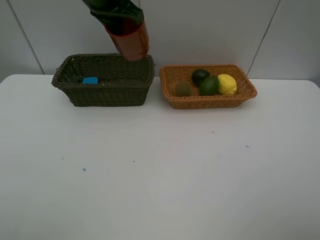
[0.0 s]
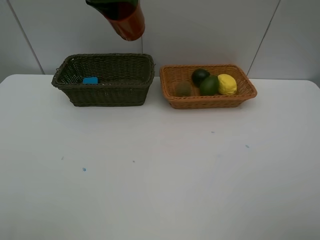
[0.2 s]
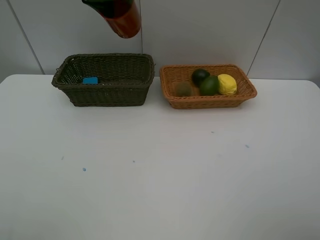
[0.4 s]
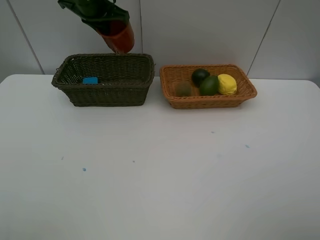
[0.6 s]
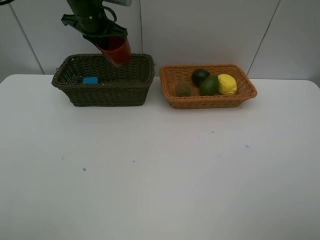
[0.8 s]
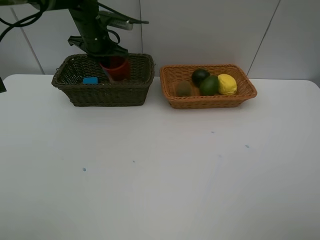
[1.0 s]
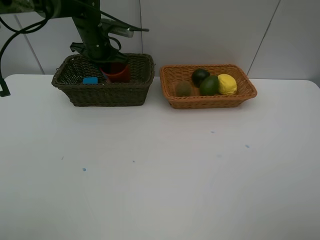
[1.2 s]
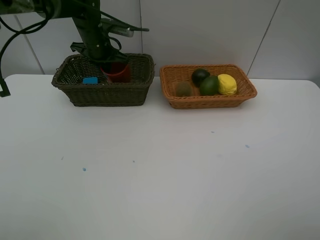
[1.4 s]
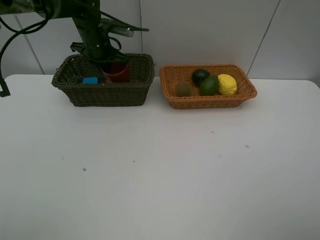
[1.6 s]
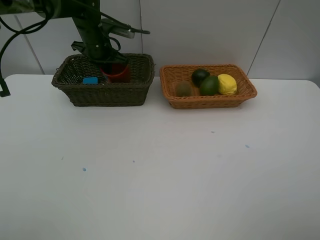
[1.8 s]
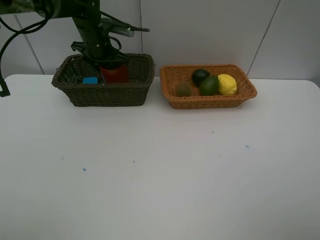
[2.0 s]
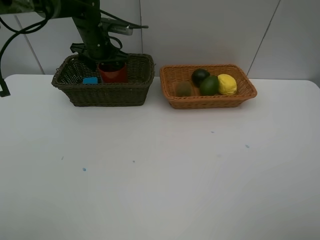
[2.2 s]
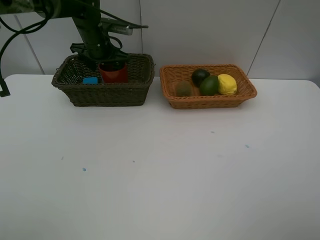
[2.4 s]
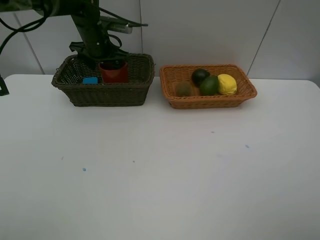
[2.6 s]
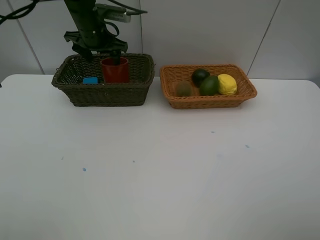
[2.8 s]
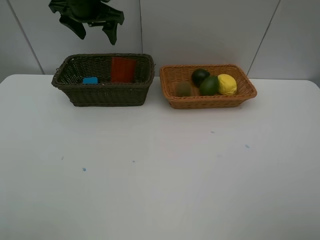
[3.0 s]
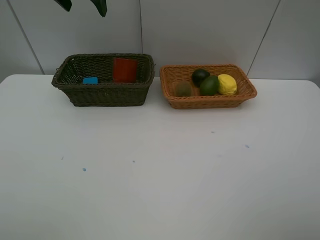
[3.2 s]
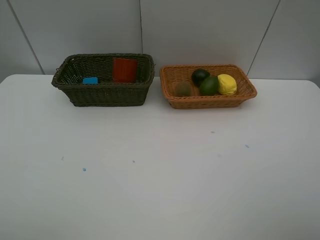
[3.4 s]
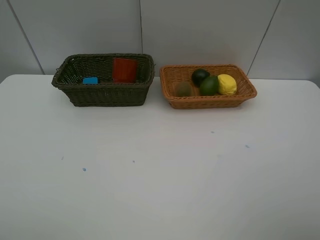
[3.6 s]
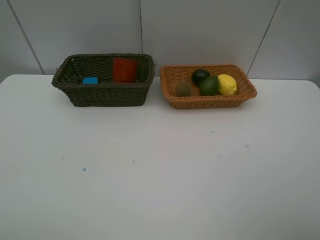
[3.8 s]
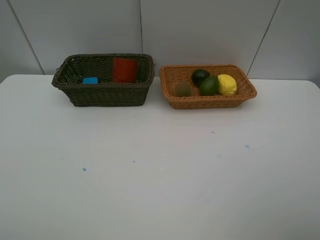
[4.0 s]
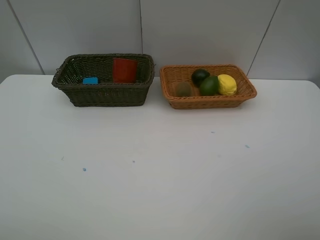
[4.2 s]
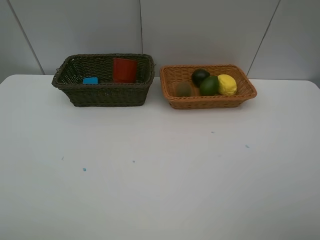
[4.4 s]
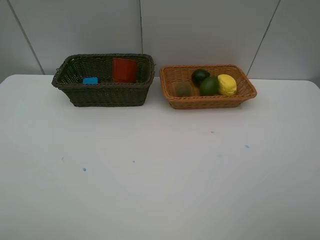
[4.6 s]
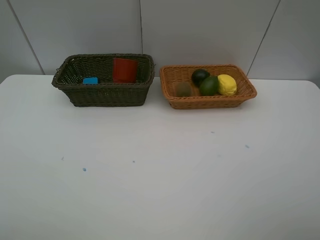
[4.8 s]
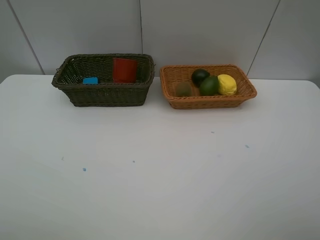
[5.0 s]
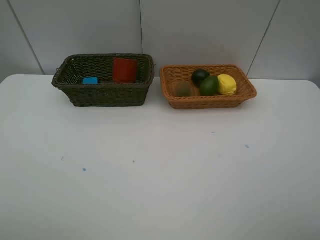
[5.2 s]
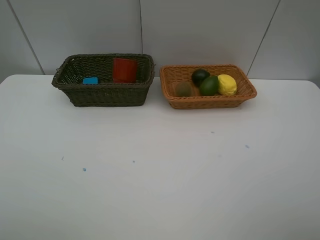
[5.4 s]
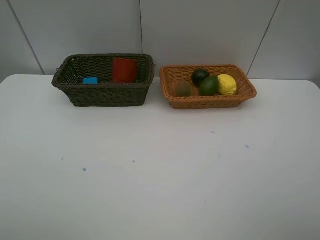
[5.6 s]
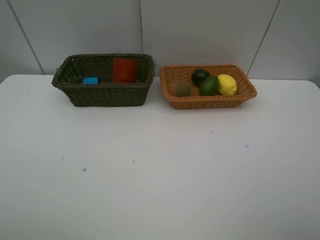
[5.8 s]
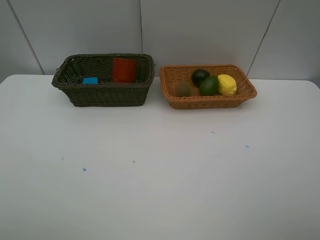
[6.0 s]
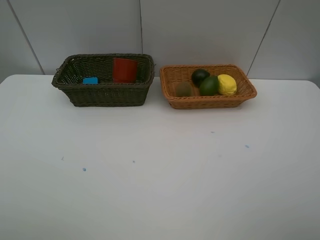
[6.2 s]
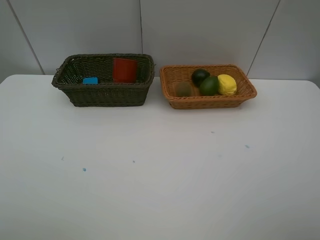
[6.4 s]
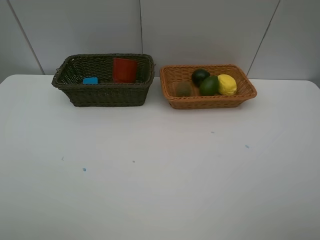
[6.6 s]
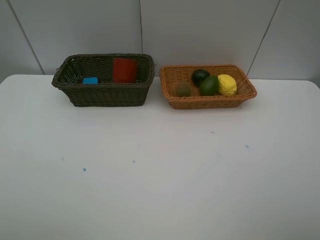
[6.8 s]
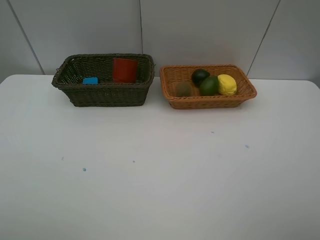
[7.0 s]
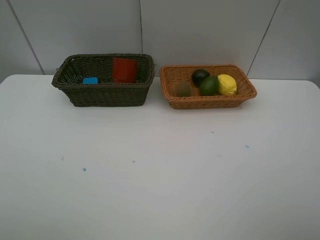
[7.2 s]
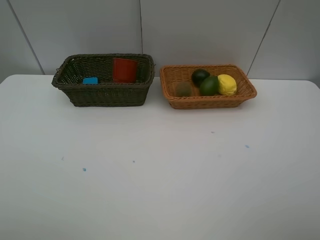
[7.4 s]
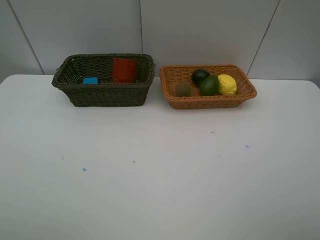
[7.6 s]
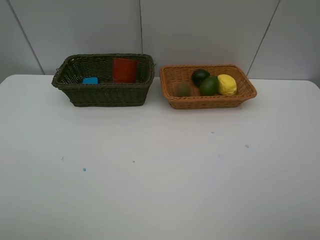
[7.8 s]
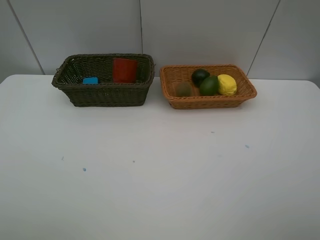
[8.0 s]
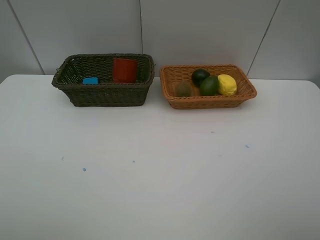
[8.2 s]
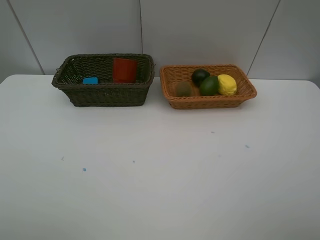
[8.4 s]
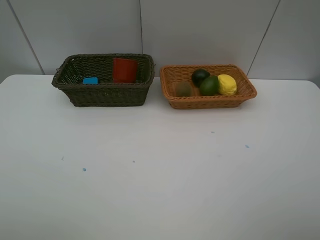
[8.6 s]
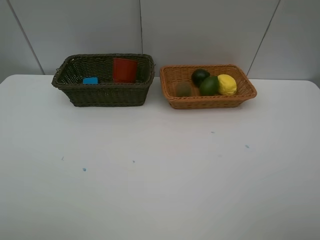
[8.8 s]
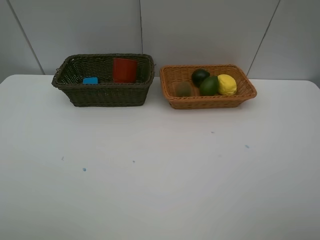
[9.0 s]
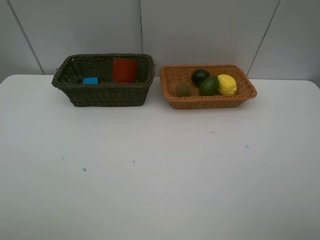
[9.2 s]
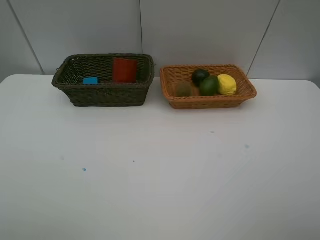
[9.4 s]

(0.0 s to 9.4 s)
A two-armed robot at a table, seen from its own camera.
Task of the whole recording: Place multiple objects separately in different baskets.
Step, 0.0 s - 2.8 s: Place the dark brown cup in the dark basket with left gripper.
0.0 s - 1.6 s: The left gripper travels downward and forward by about 15 cm.
1.6 s - 3.2 s: The left gripper is displaced upward and backward by roughly 20 cm, and opens up.
6.2 s - 9.4 s: The two grippers keep their place.

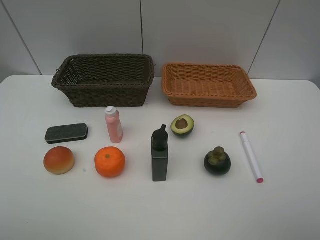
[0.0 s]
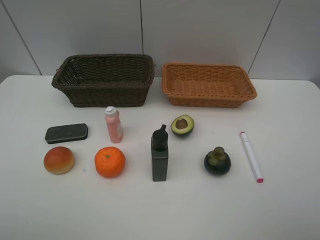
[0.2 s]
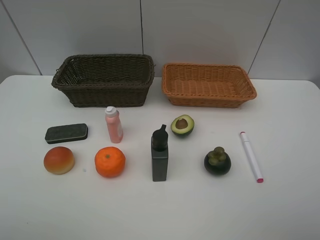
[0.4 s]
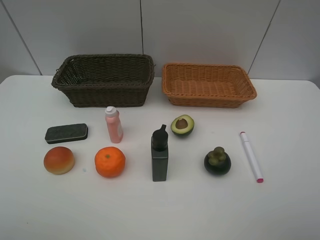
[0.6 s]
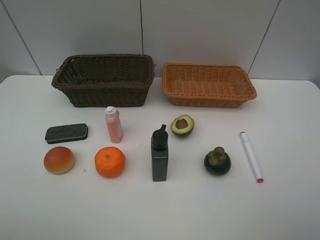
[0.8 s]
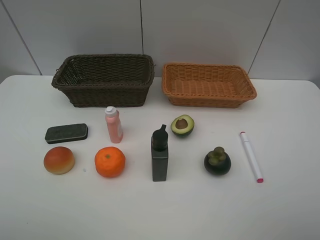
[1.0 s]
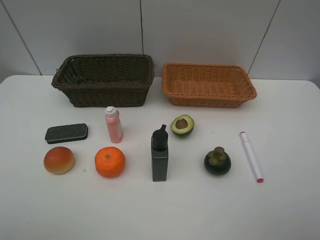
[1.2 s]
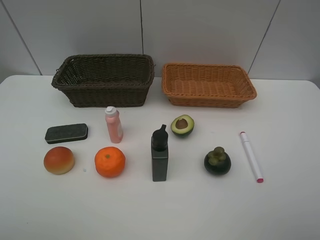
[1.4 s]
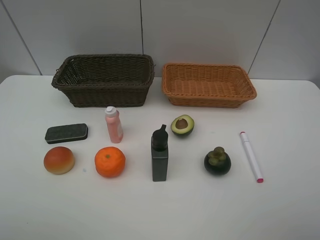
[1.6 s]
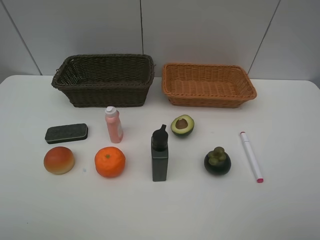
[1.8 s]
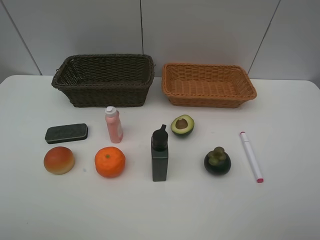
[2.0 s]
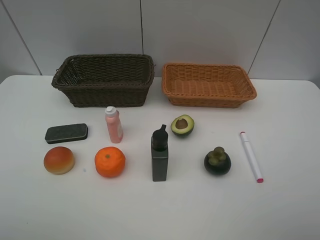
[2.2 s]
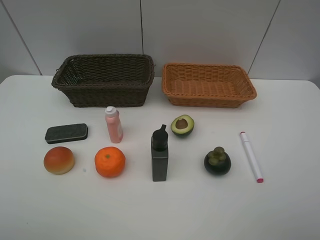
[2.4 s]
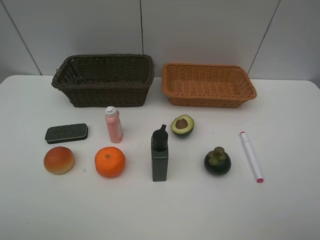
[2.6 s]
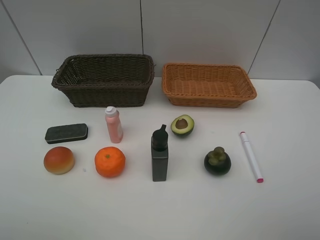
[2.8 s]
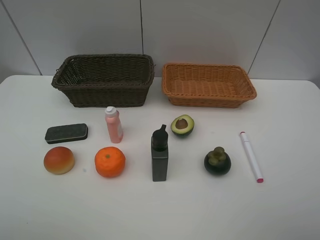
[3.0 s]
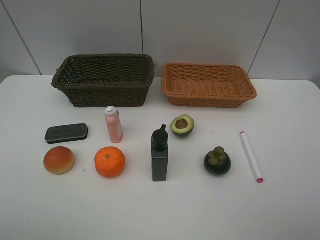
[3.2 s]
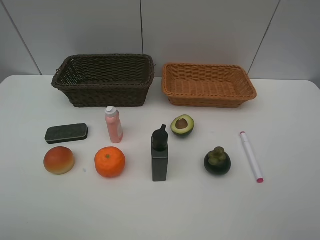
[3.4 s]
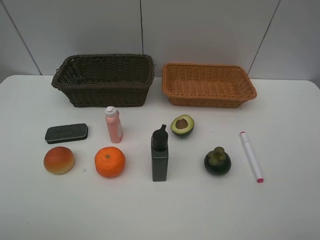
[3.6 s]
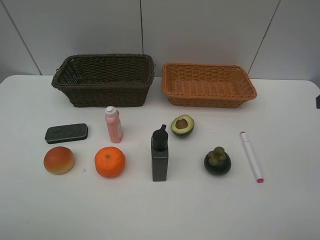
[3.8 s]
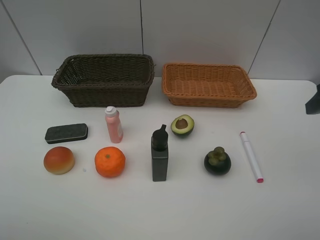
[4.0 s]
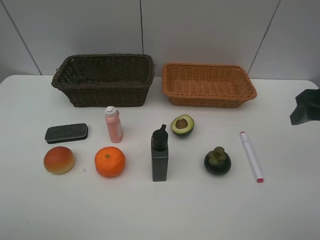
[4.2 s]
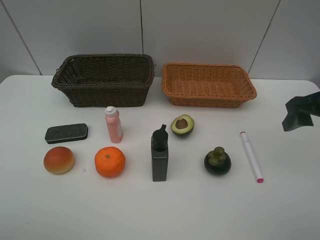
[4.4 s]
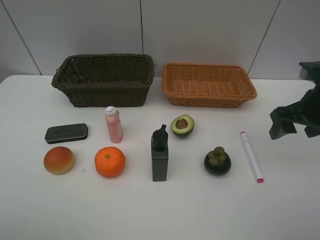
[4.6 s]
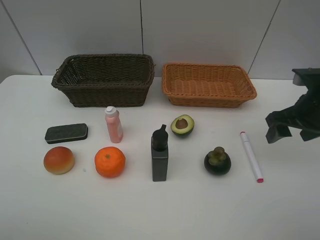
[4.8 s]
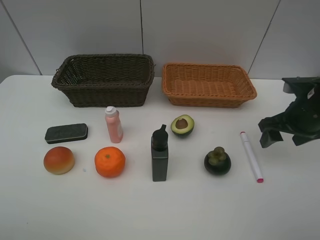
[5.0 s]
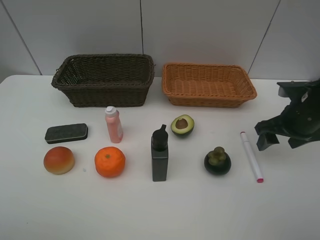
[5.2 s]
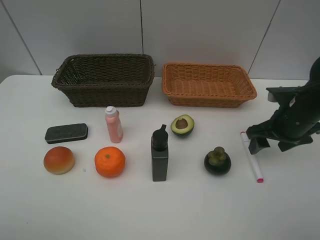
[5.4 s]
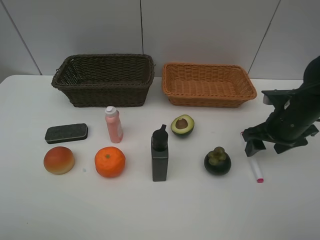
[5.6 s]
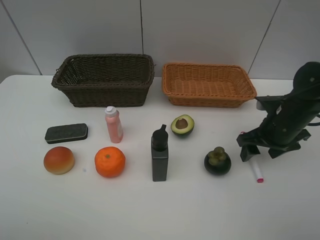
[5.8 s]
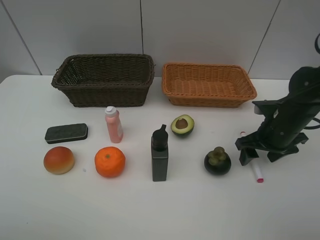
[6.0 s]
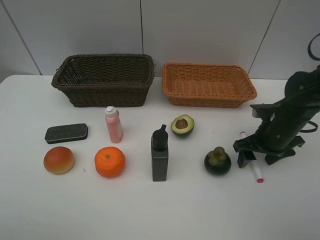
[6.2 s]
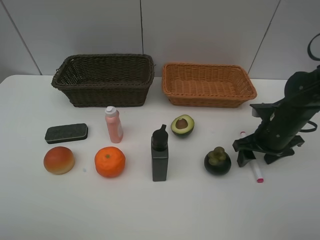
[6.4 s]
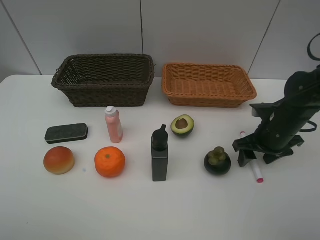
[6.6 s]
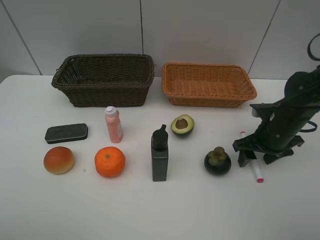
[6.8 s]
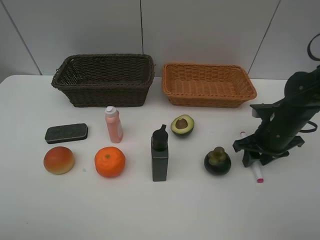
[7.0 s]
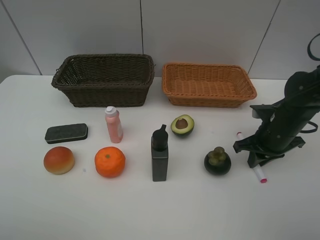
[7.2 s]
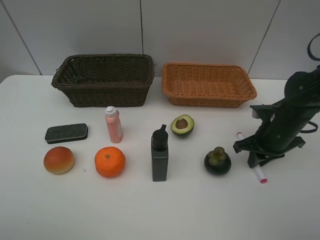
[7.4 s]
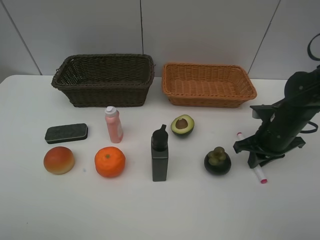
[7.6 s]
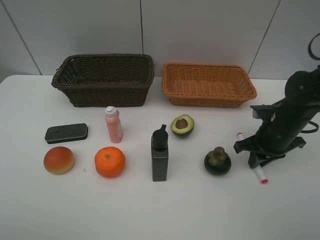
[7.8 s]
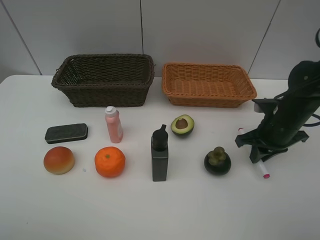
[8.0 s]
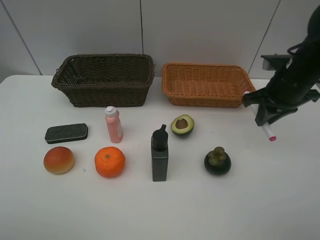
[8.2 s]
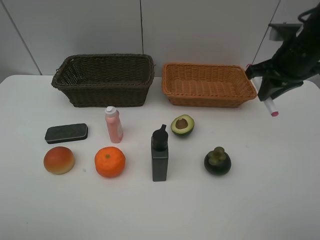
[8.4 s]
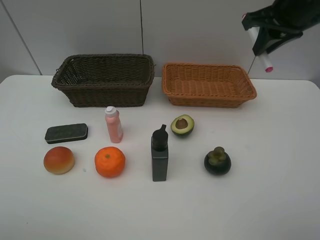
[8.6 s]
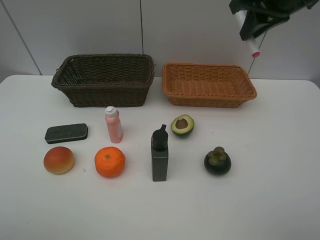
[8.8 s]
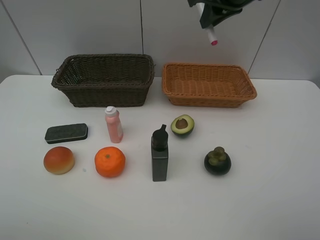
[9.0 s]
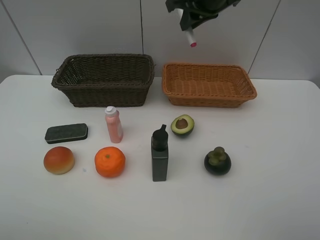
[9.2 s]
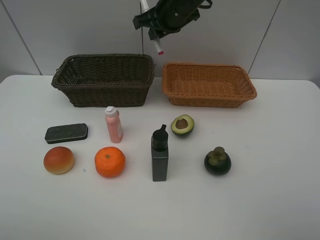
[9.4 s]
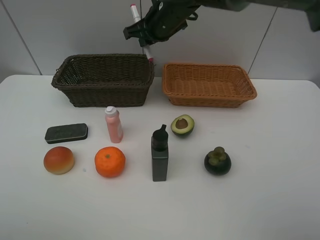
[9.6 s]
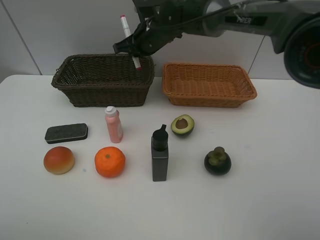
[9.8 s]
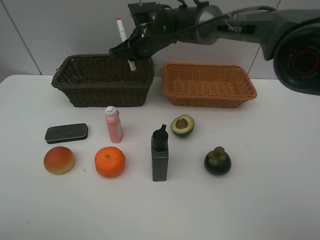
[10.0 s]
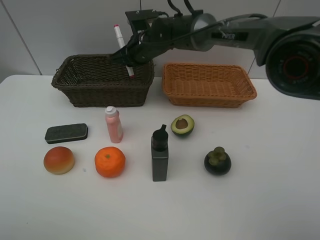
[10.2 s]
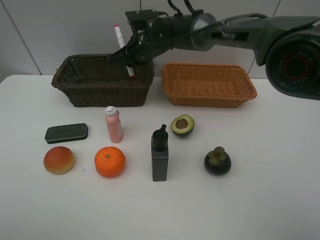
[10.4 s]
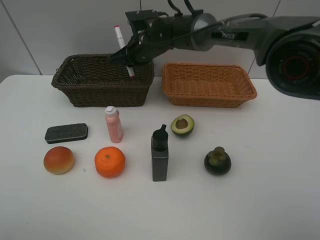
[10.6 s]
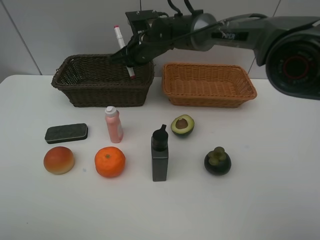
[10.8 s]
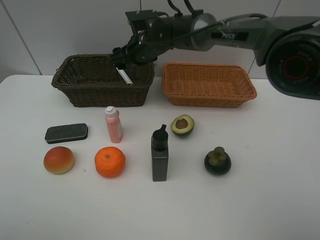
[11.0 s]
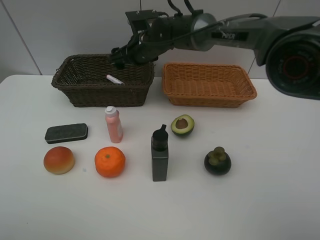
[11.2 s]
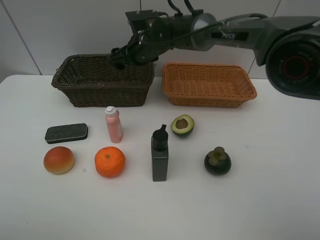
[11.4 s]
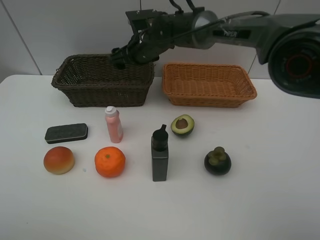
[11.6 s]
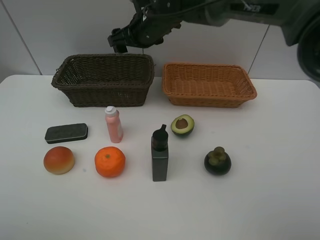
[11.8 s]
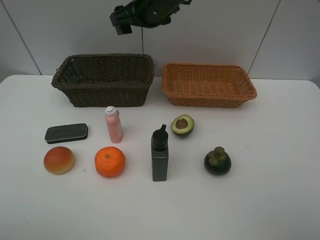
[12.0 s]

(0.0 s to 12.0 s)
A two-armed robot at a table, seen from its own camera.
Task of the whole recording: Place multiple objects separately in different baskets.
Step, 0.0 s - 8.0 s: Pick up the red marker with right gripper.
Step, 8.2 s - 11.2 s: Place the red marker in the dark basket with right gripper.
0.0 s - 1.6 s: Both grippers stay put.
3.0 s - 4.4 s: The right gripper heads forward, covering about 20 cm.
4.4 s - 6.0 s: The right gripper shifts roughly 10 cm downward.
6.0 s - 7.6 s: The right gripper closes up.
7.6 s - 9.0 s: The right gripper travels upward, to the left and forward by roughly 30 cm.
9.0 s - 10.4 s: The right gripper is displaced downward, to the left and forward by some 25 cm.
10.4 s - 12.0 s: The right gripper heads upward, covering some 10 cm, and opens its fingers.

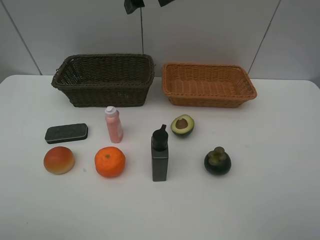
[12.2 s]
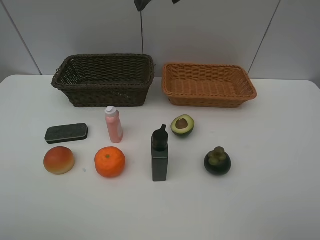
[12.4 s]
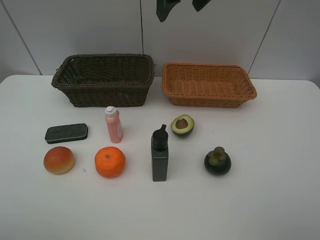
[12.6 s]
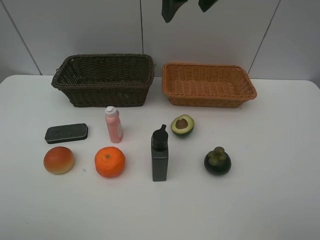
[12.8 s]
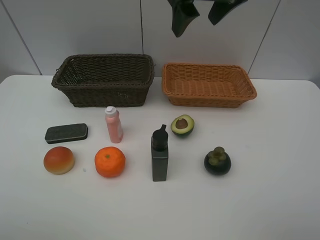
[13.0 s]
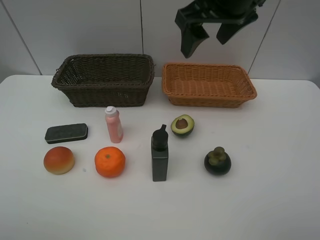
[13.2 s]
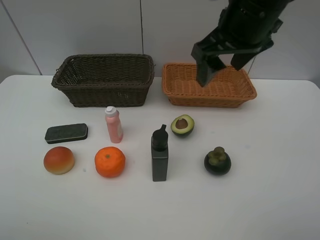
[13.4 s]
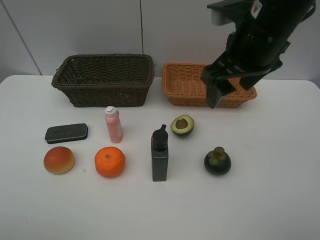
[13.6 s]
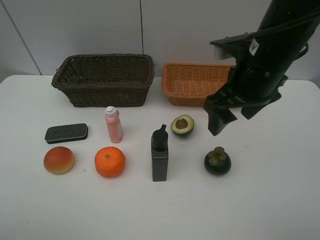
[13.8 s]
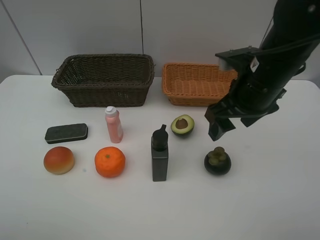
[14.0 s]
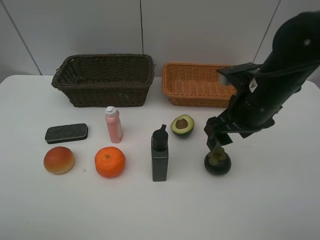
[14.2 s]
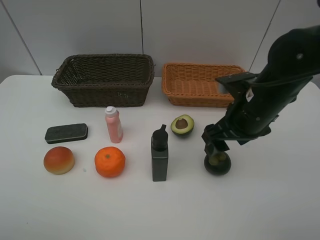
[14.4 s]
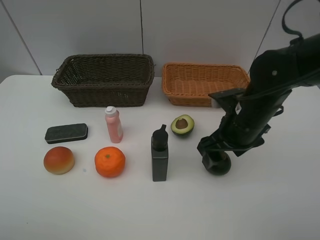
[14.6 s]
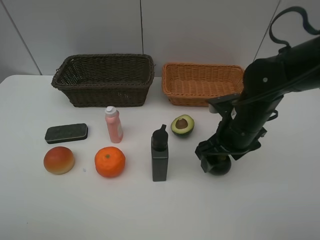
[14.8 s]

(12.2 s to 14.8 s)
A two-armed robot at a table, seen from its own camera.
Task of the whole recording: Place multiple objects separately in different baskets.
12.2 s - 13.4 s: The right gripper shifts some 15 cm backward and to the right.
13.4 s - 14.8 s: The right gripper is displaced downward by approximately 20 cm.
